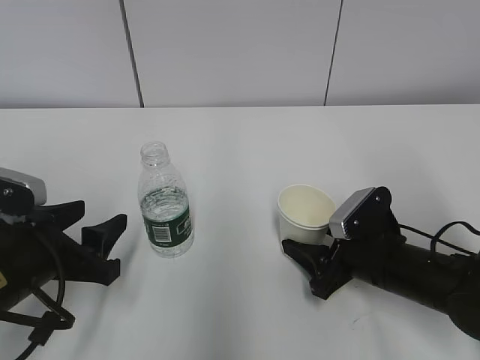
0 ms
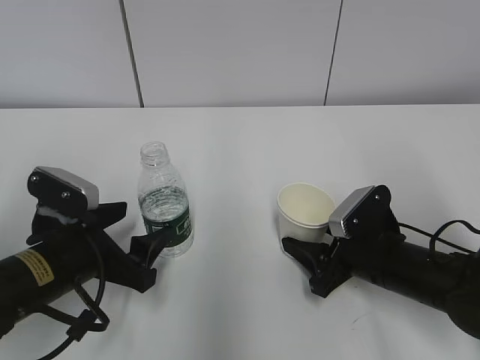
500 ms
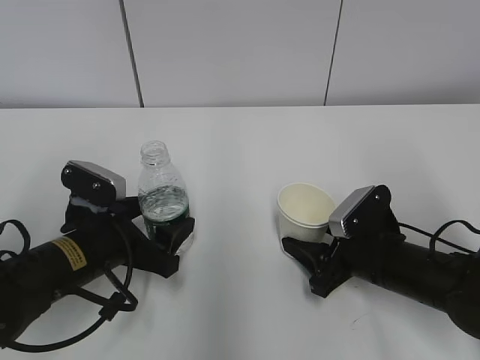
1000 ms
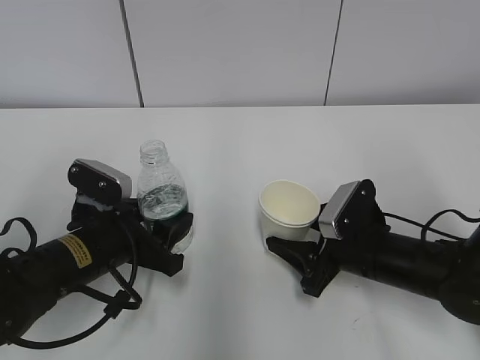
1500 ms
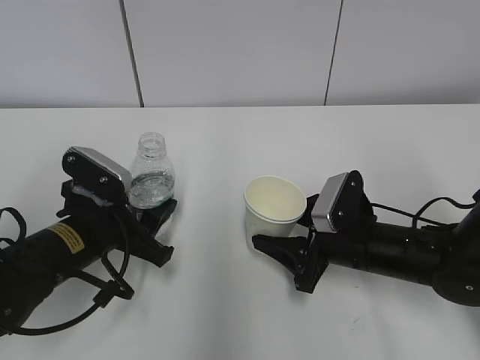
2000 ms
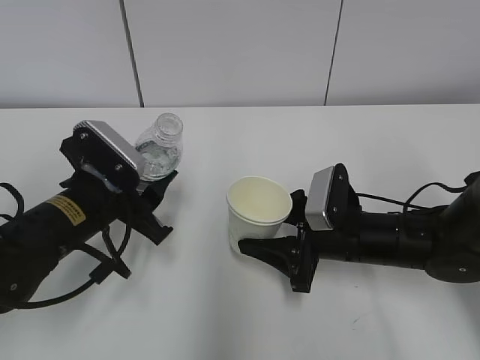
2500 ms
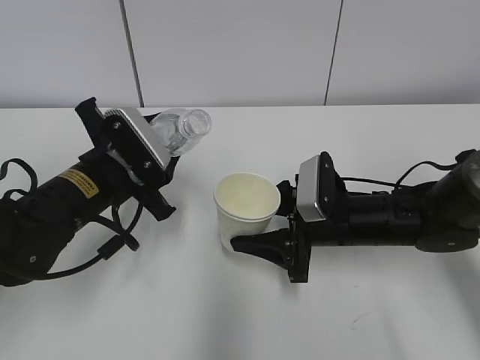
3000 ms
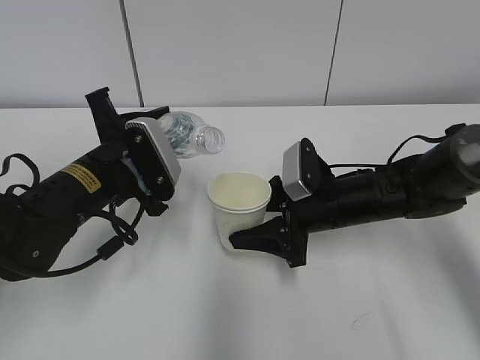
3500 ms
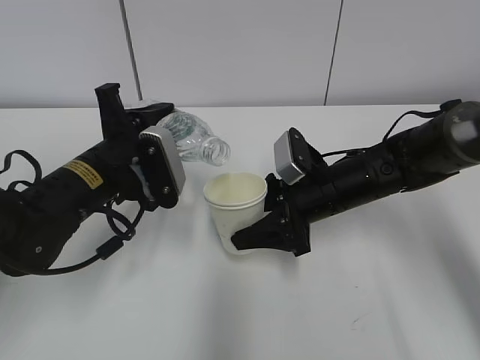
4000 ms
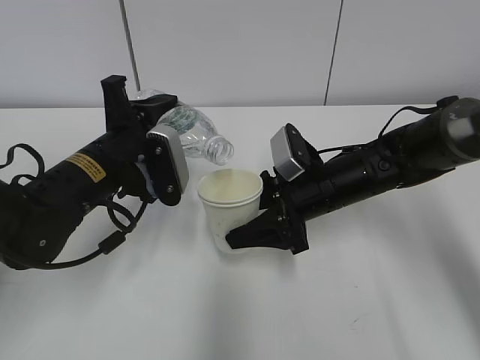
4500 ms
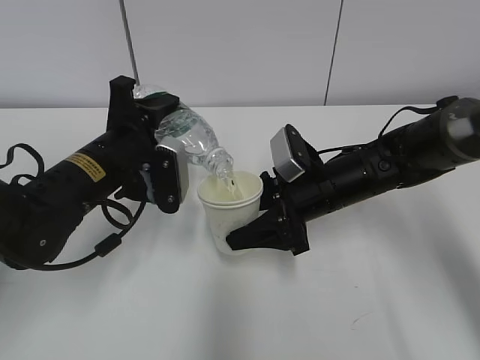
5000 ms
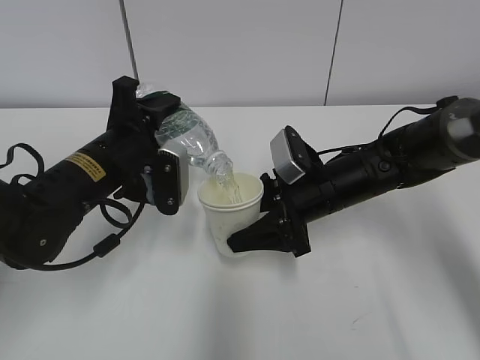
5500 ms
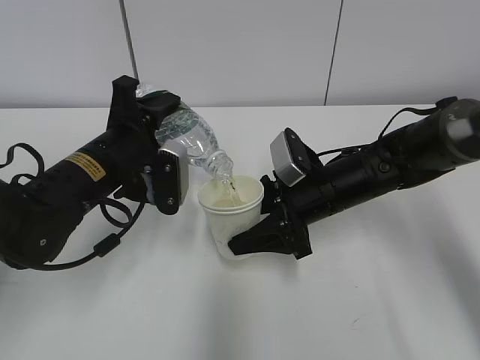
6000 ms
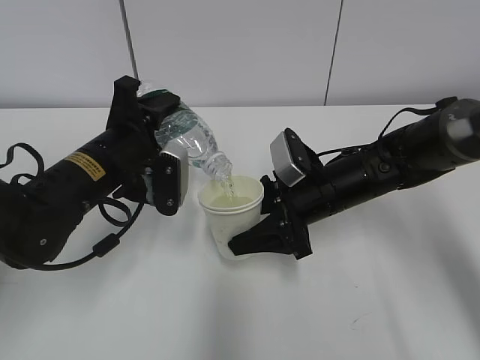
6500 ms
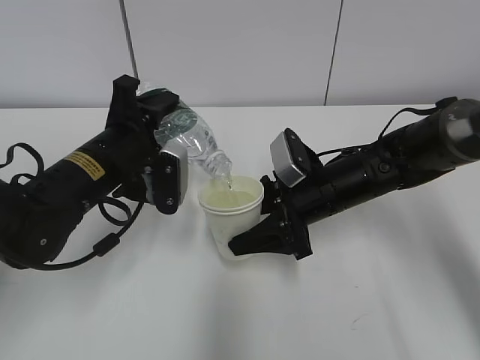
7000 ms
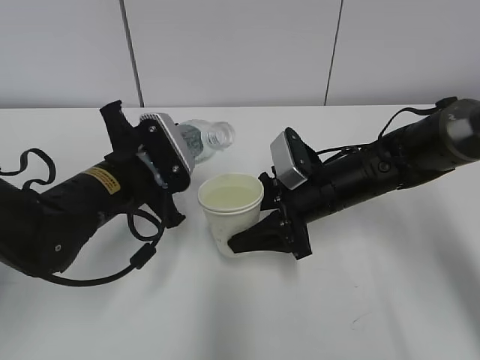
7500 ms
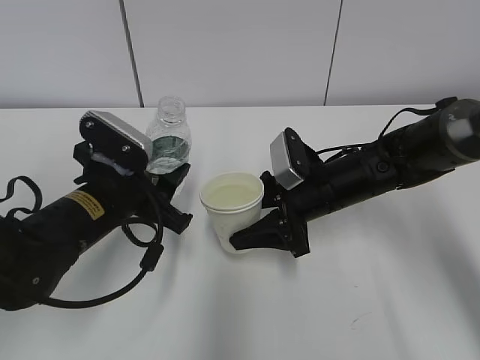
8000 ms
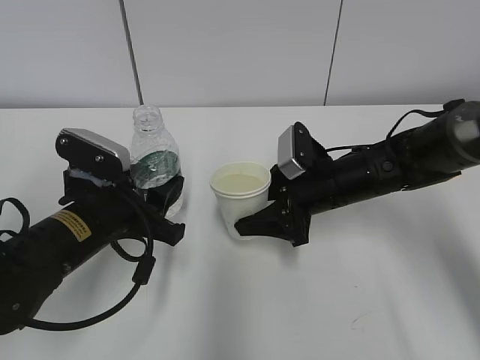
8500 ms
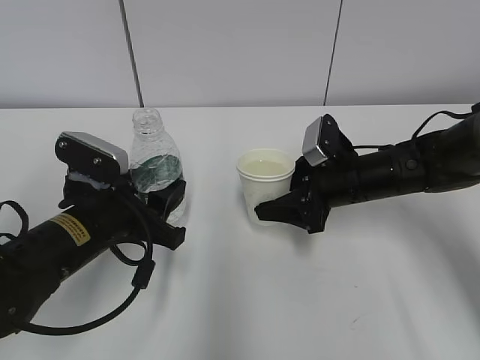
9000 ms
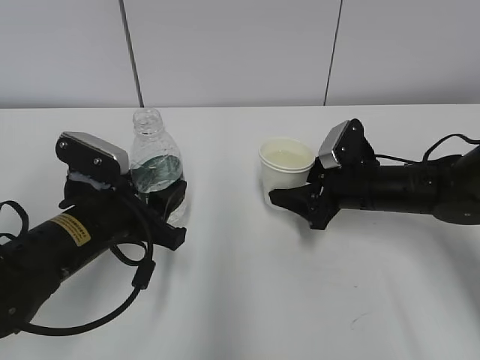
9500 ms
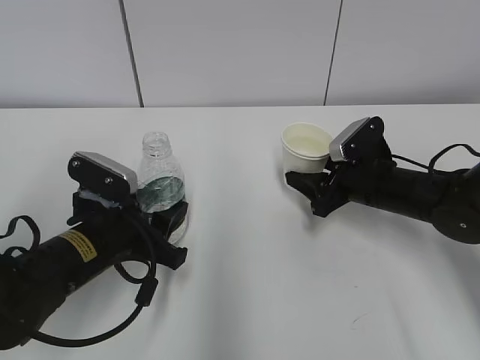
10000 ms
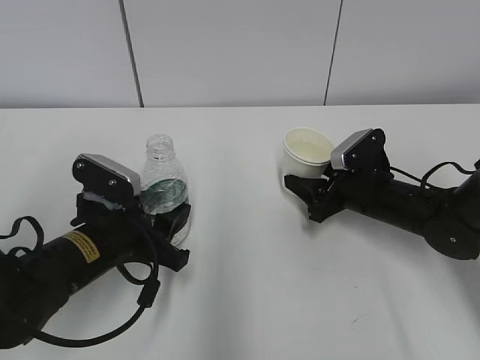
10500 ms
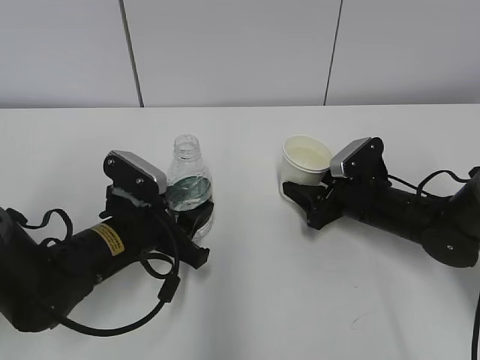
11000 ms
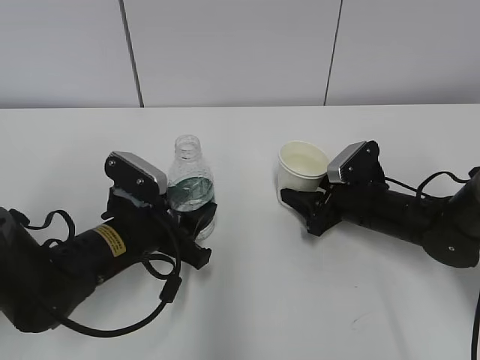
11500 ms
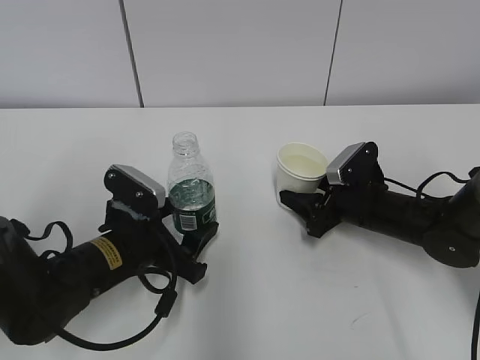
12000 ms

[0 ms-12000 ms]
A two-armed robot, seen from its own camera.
Step, 500 ms to 2500 ms: Lift the paper cup with the right hand.
Step, 3000 ms to 5000 ms: Fill water with the right hand.
Step, 3000 ms to 5000 ms: Pour water with the left hand.
Step, 6500 ms to 9000 ms: Place the water bottle with the left hand.
0 ms to 2000 ms: The left gripper is displaced forward by about 5 cm, and opens and closes again.
2000 ms to 4000 ms: The right gripper moves forward, roughly 5 cm. Meanwhile the left gripper travels upward by roughly 5 cm.
4000 ms to 6000 ms: The grippers move only a little.
8000 ms to 10000 ms: The right gripper goes some 10 cm to the right.
10000 ms to 12000 ms: The left gripper opens its fingers.

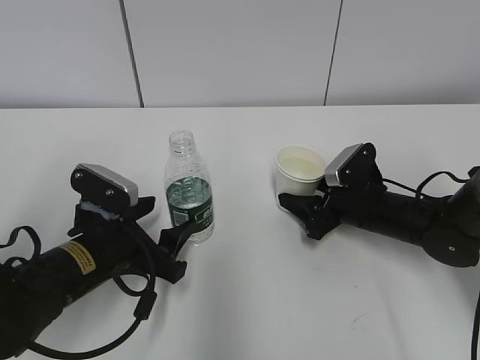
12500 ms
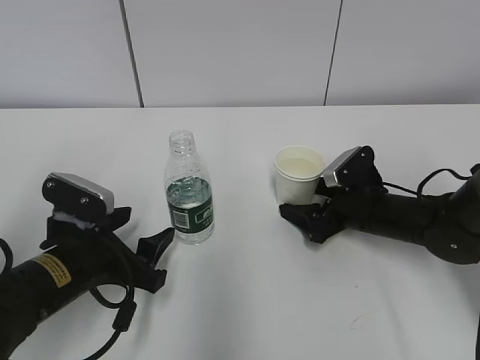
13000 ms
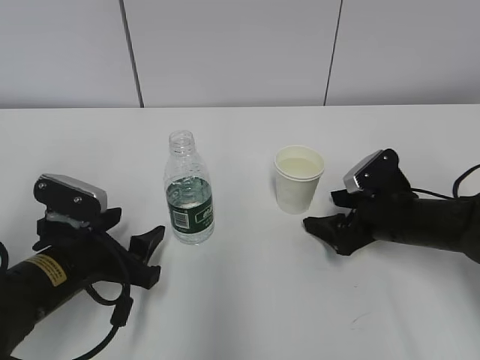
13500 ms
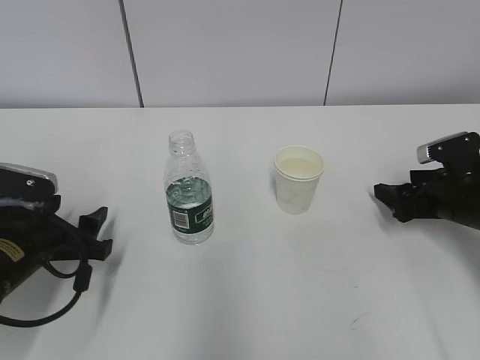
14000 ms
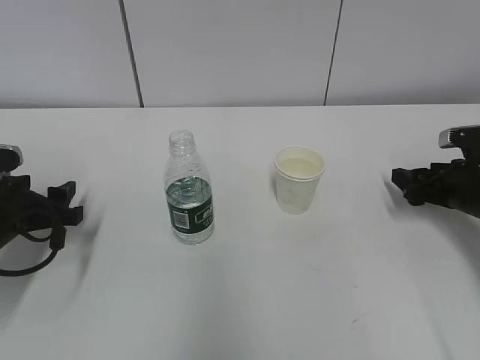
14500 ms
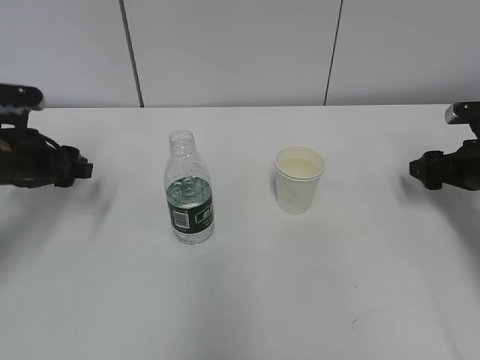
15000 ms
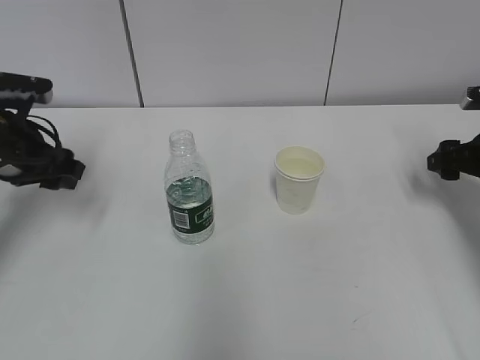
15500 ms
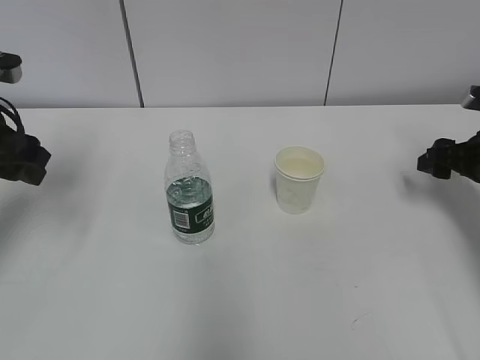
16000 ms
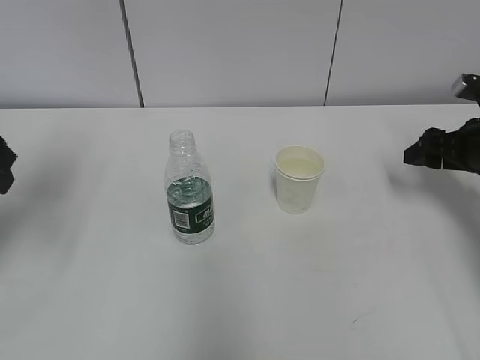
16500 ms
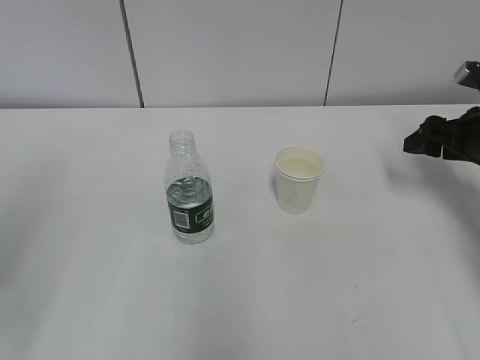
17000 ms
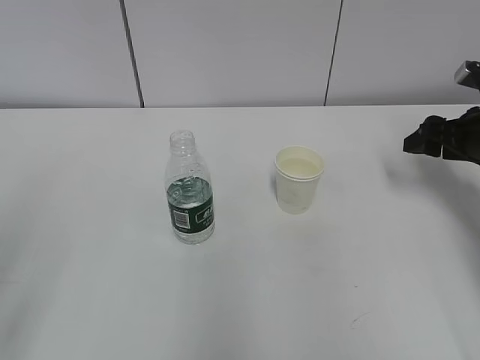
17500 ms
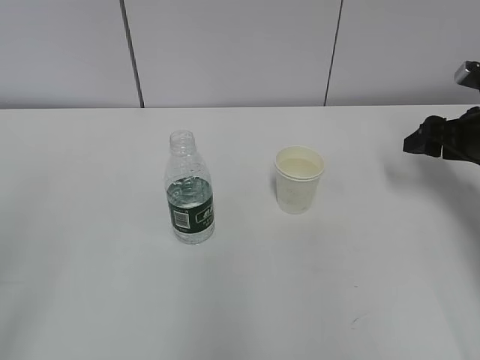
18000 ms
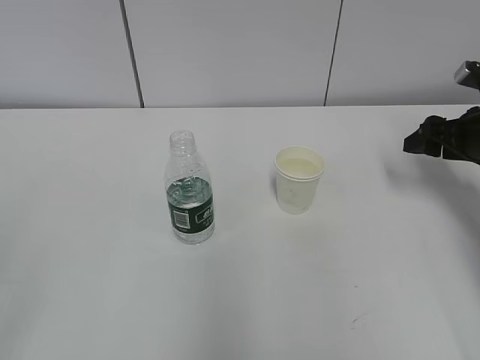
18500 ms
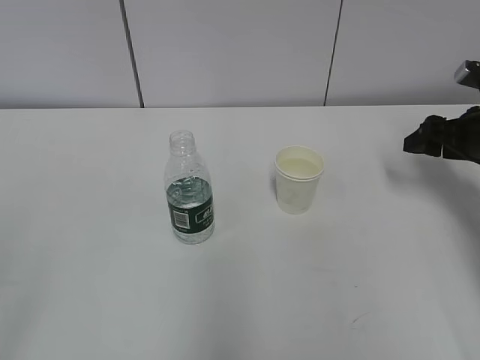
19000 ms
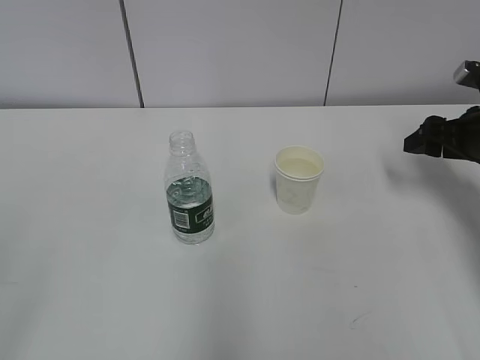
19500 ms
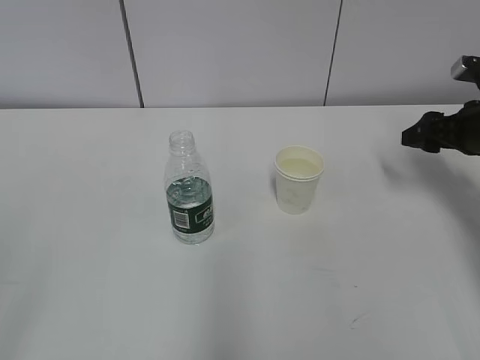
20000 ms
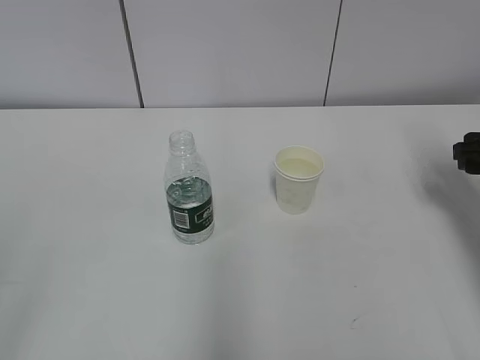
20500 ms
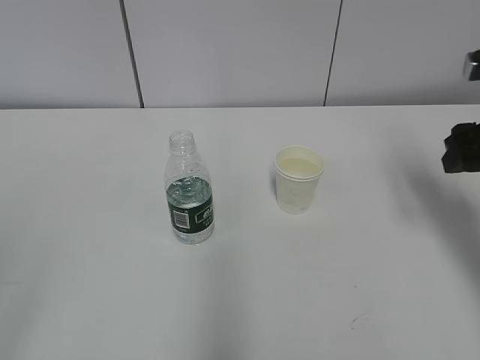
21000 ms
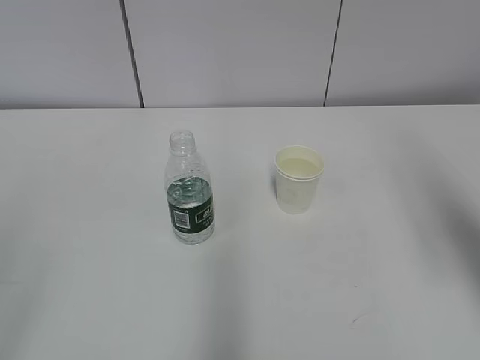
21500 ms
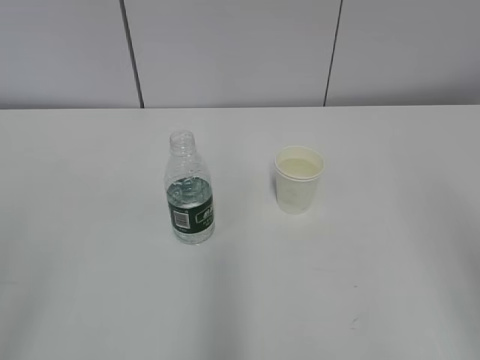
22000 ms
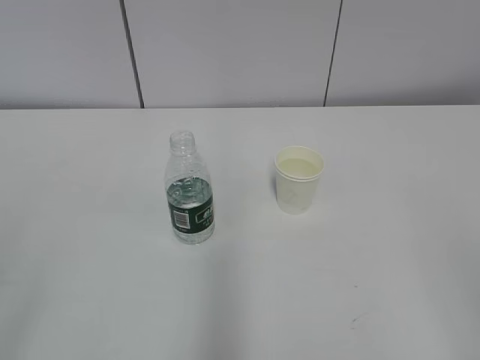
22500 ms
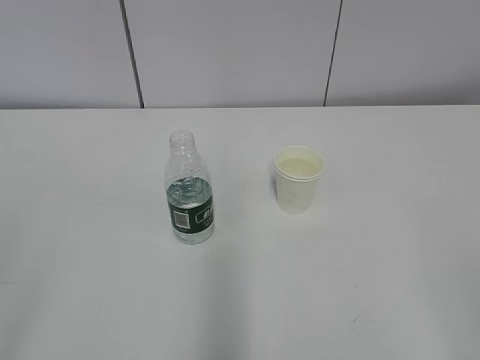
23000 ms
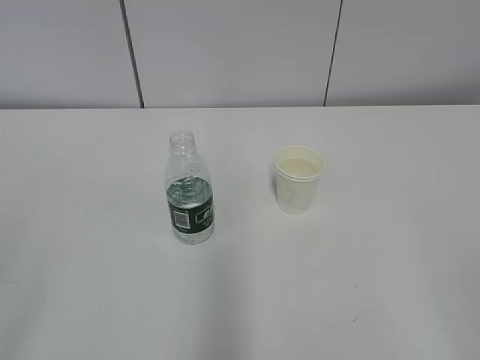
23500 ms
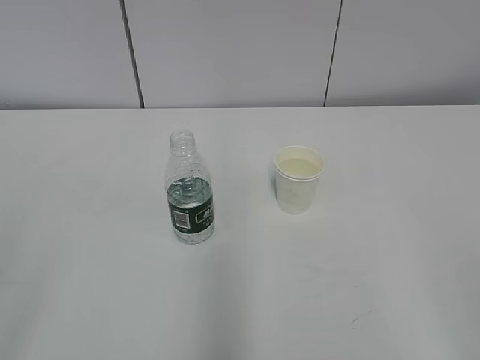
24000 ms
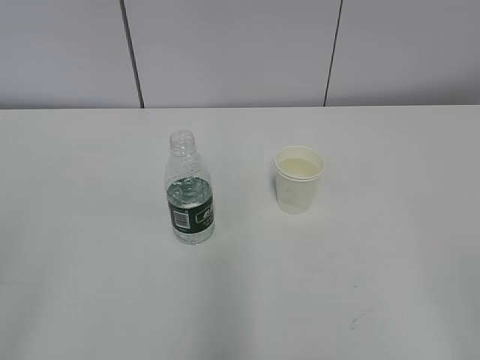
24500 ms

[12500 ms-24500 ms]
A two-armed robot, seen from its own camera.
12500 ms to 14500 ms: The right gripper is displaced to the right by roughly 15 cm, and opens up, while the left gripper moves to the left, approximately 10 cm.
14500 ms to 16500 ms: The left gripper moves upward, approximately 15 cm. Meanwhile the right gripper is displaced upward by some 5 cm.
16500 ms to 18500 ms: The left gripper heads backward, covering about 25 cm.
20500 ms to 22500 ms: The right gripper travels backward by roughly 35 cm.

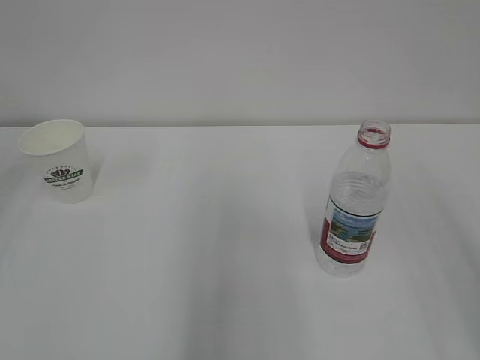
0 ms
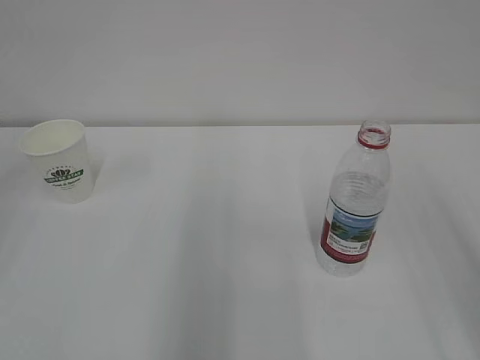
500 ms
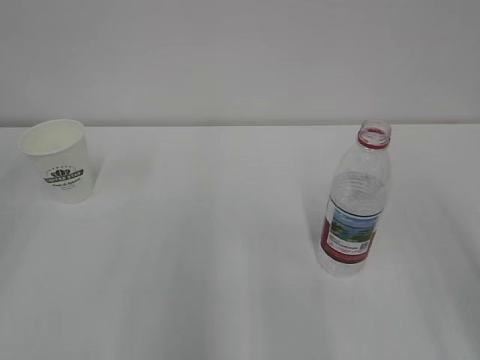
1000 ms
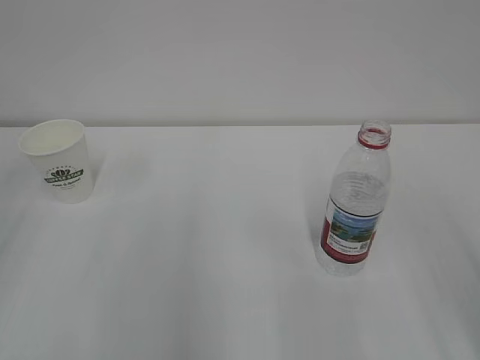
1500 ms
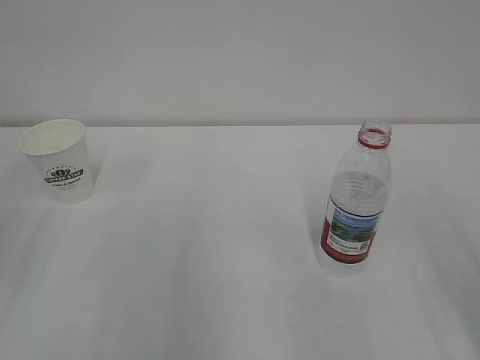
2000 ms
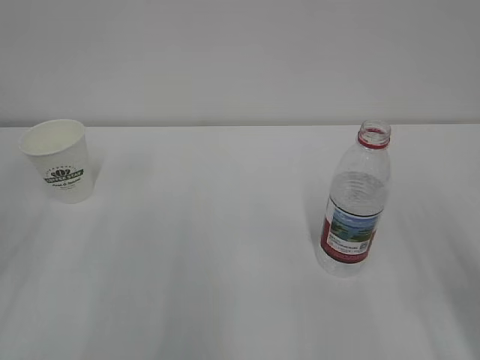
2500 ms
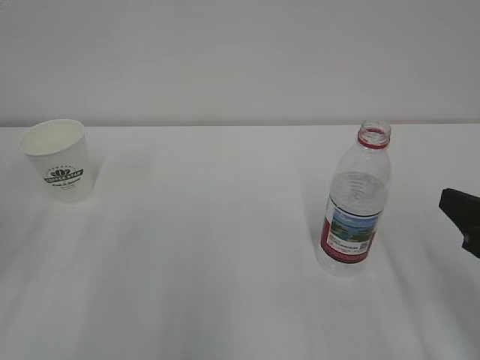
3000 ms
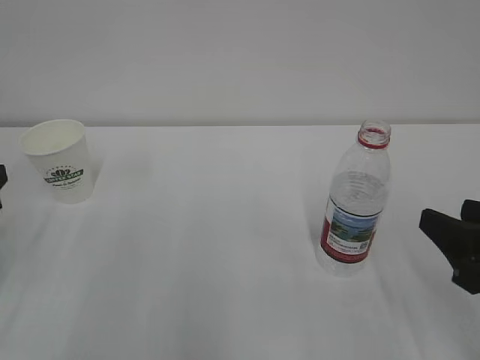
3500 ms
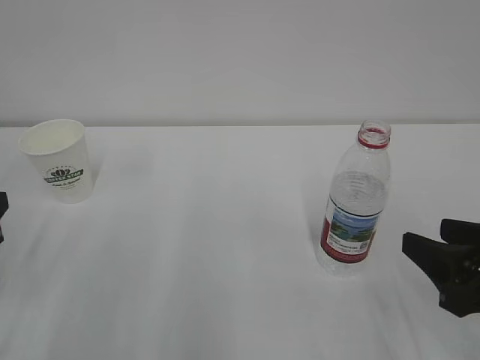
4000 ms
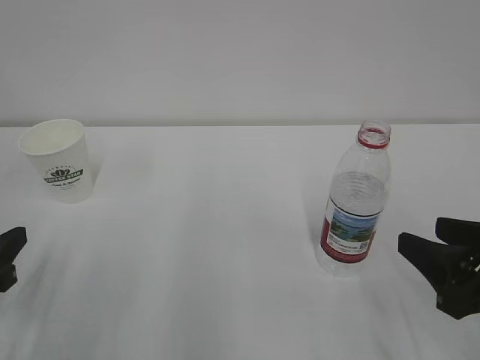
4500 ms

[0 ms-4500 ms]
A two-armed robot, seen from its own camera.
2000 ms to 4500 ms: The two grippers go roughly 10 cm downward.
